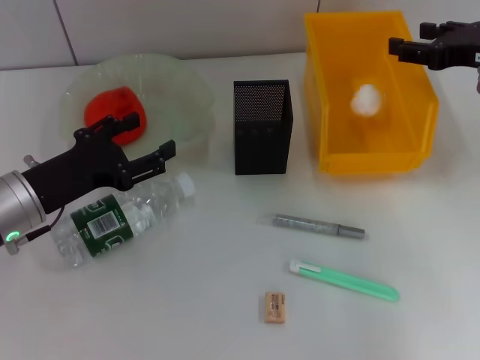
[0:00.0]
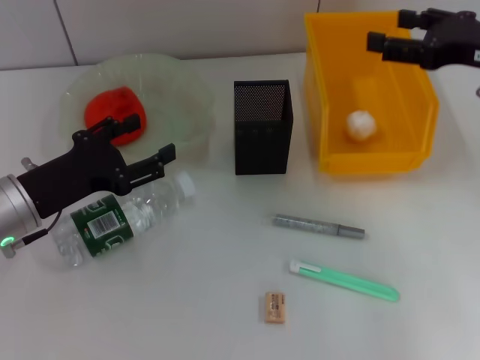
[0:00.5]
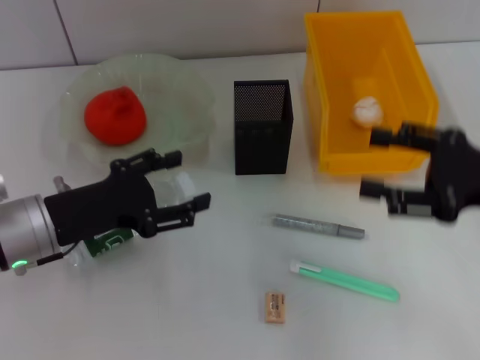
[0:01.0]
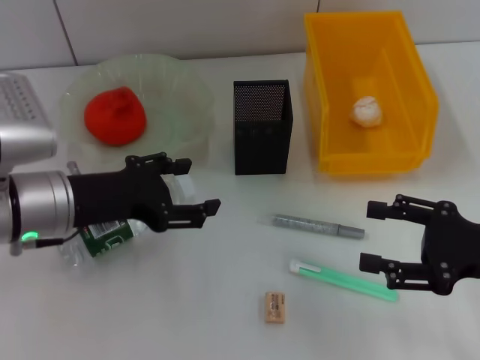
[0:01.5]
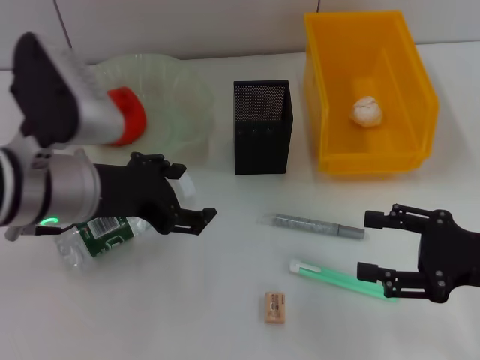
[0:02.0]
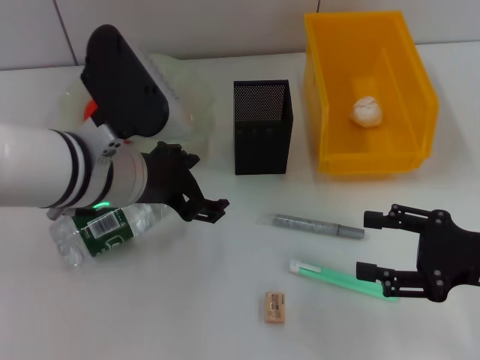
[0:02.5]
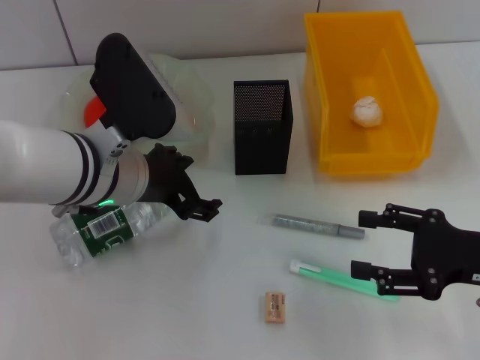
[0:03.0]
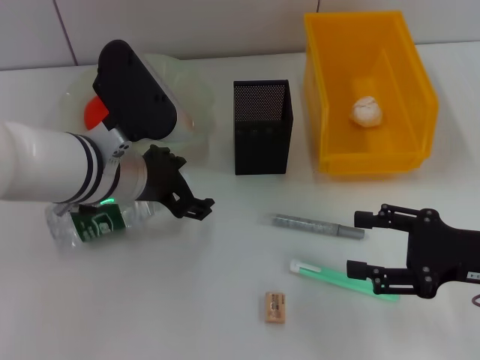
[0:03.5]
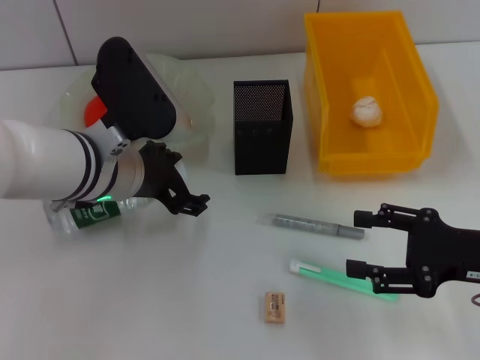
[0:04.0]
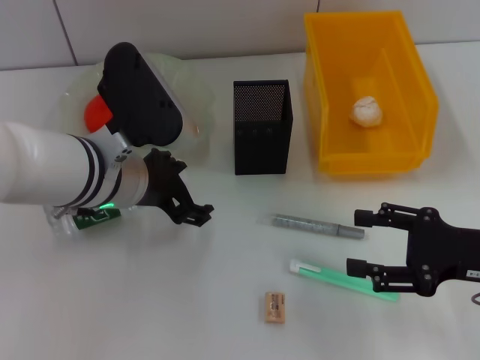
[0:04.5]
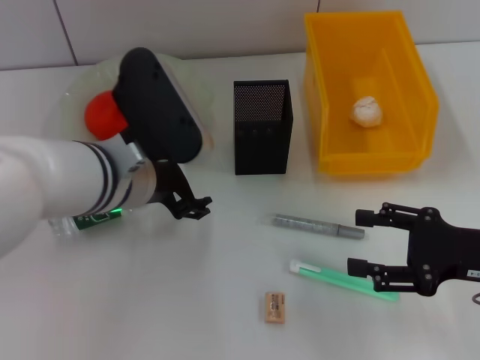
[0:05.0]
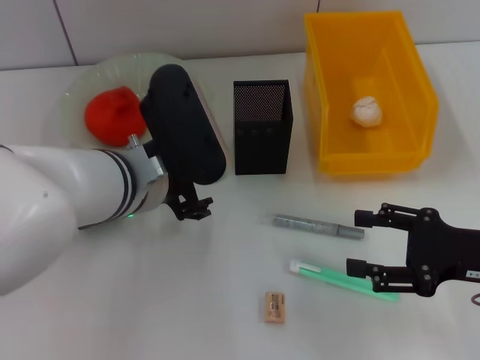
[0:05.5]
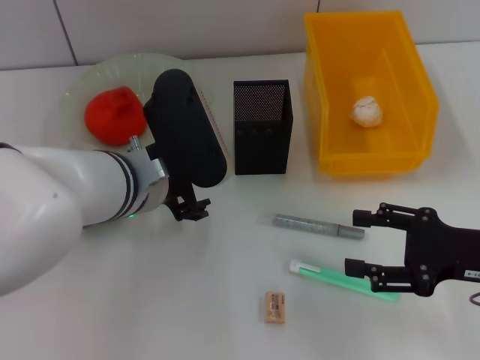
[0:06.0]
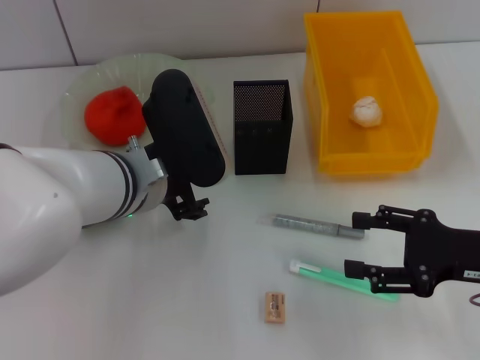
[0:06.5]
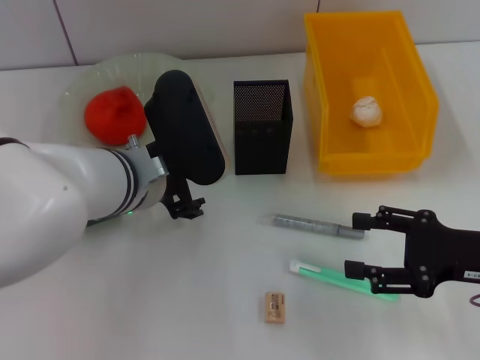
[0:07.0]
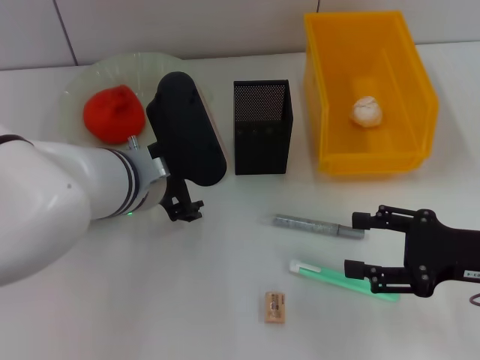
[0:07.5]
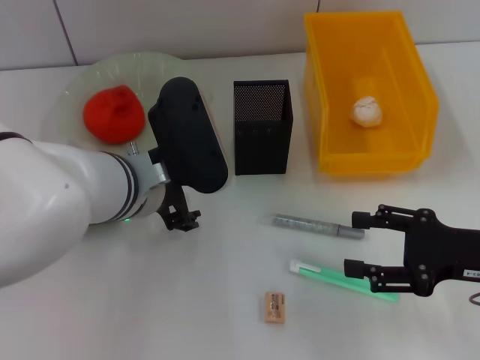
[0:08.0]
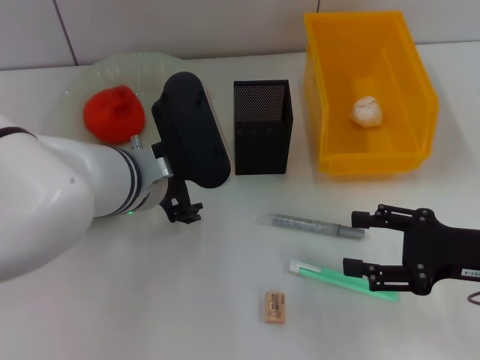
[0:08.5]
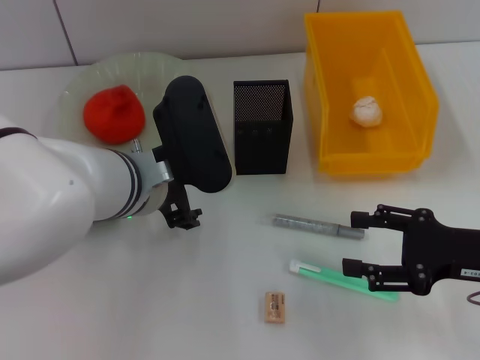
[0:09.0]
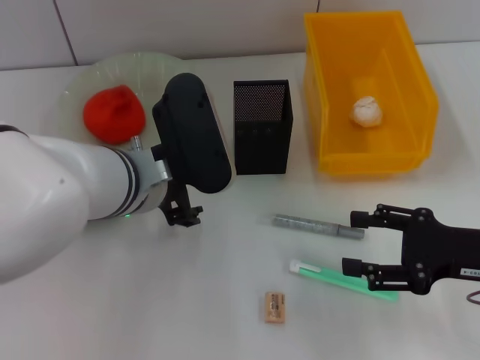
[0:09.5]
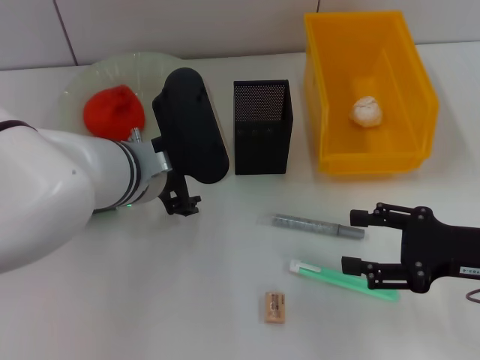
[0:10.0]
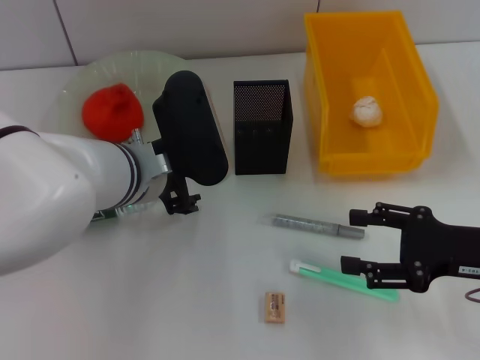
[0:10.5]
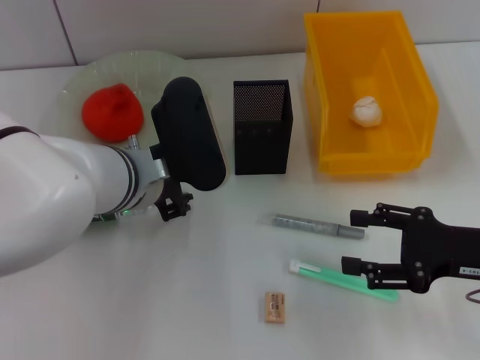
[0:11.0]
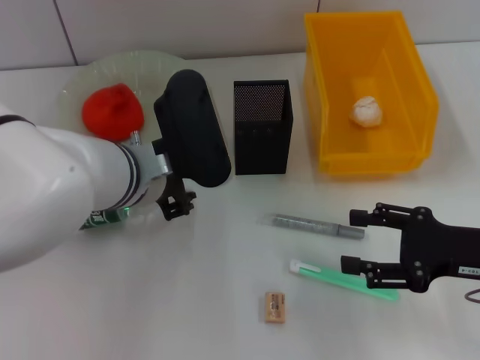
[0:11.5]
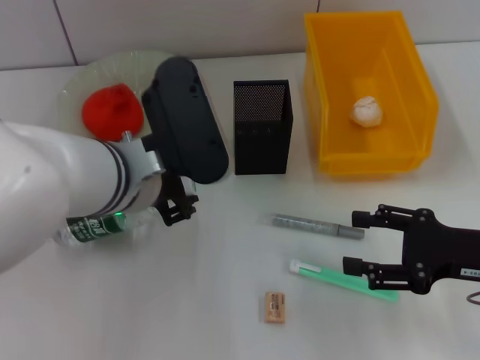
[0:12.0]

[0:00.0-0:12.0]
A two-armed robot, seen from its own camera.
Step, 1.5 to 11.0 s: Grab the water bottle with the left hand.
0.0 to 2.0 s: The left gripper shifts roughly 10 cm upward and to the right. Meanwhile the right gripper goes some 20 cm backward and downward.
2.0 to 4.0 s: The left gripper changes place by about 5 cm.
4.0 to 8.0 s: There are only small adjustments of the grippers.
8.0 to 10.0 s: The grippers stay close to where they were, moving slightly.
10.0 to 12.0 s: The left gripper closes its fingers.

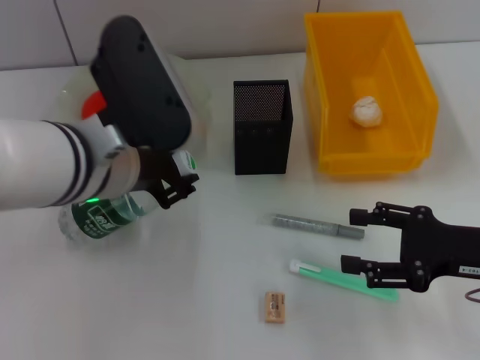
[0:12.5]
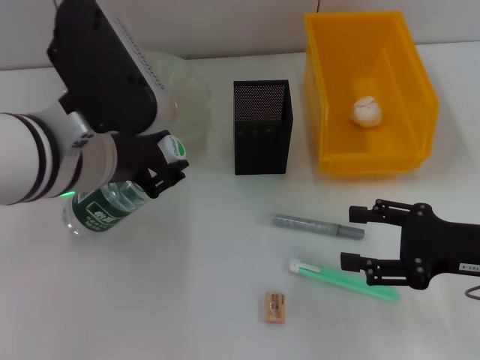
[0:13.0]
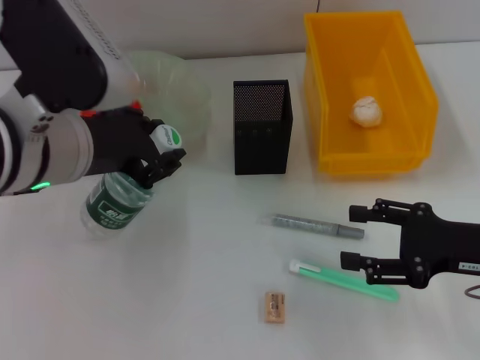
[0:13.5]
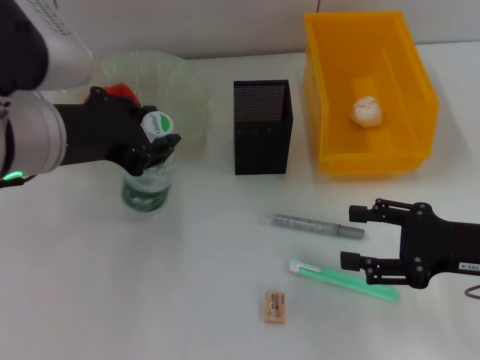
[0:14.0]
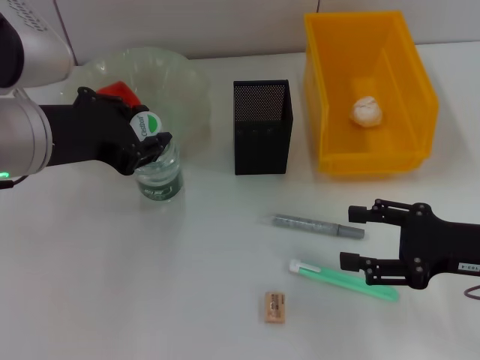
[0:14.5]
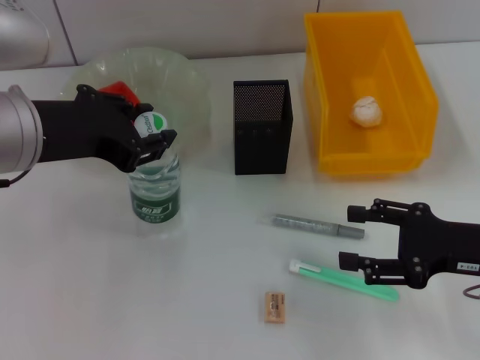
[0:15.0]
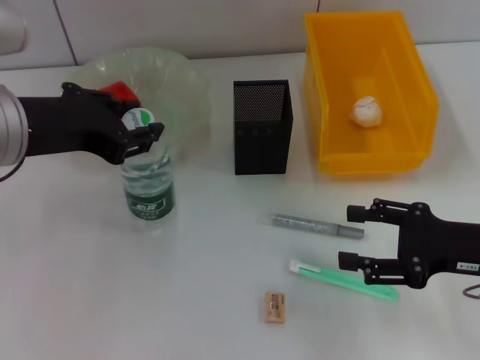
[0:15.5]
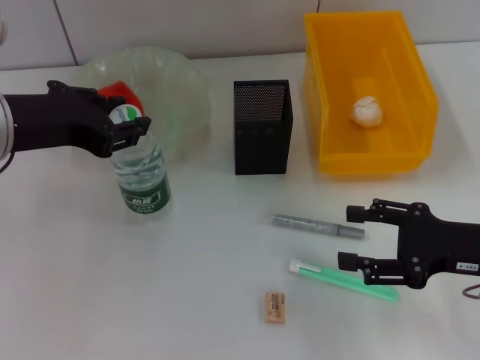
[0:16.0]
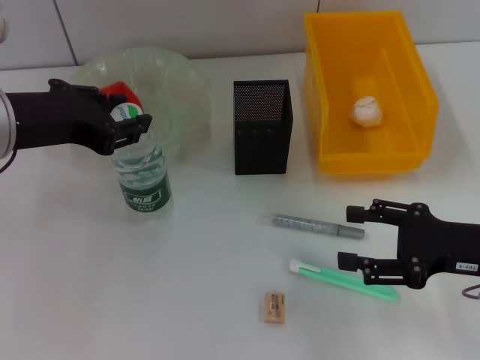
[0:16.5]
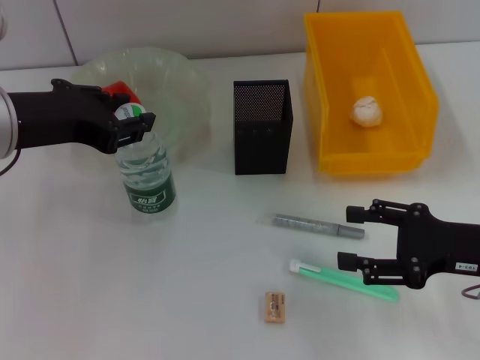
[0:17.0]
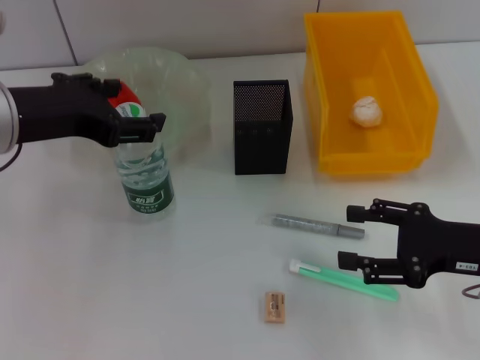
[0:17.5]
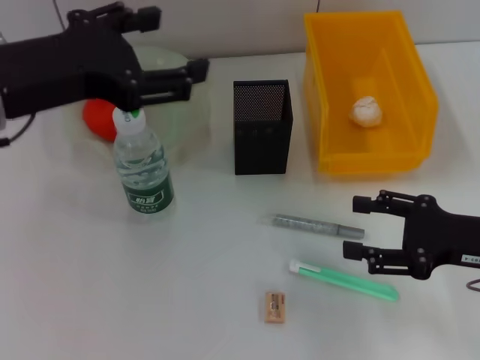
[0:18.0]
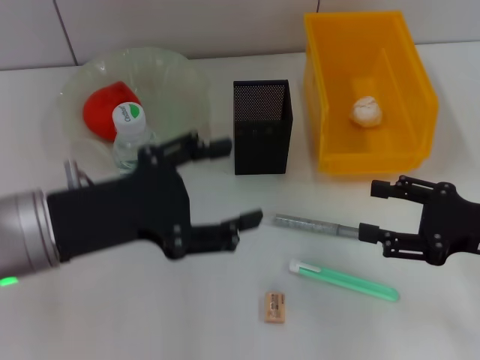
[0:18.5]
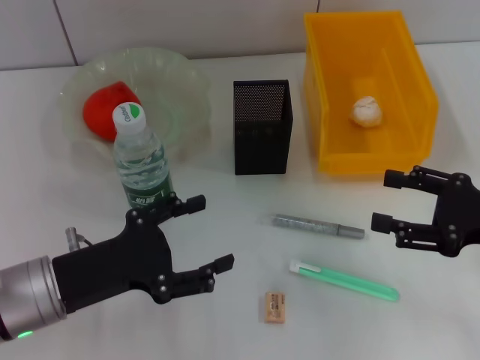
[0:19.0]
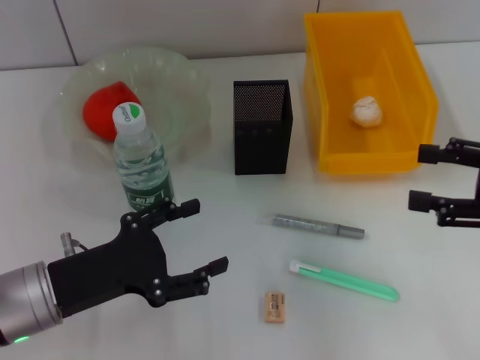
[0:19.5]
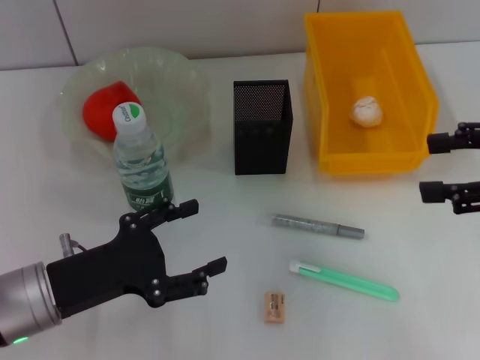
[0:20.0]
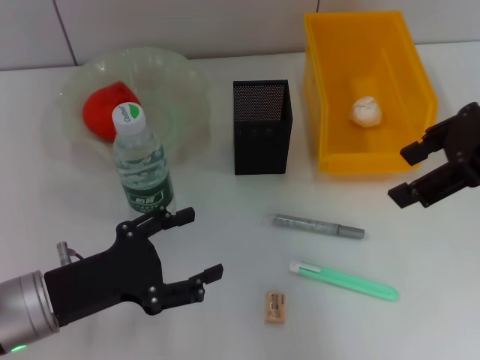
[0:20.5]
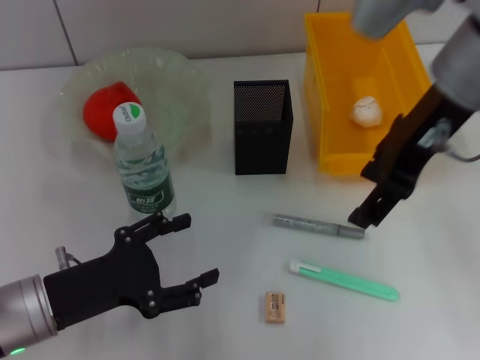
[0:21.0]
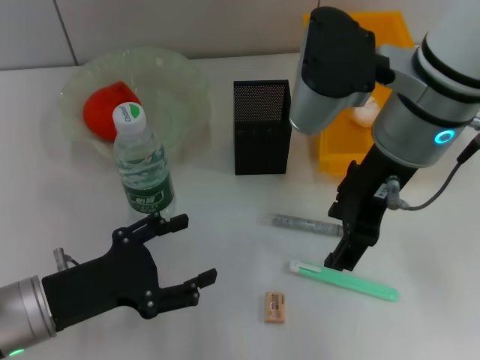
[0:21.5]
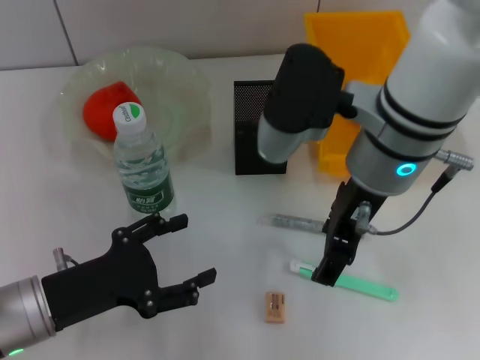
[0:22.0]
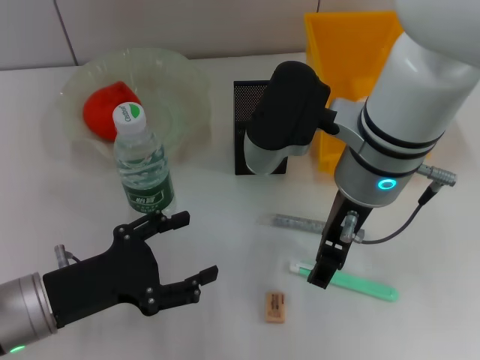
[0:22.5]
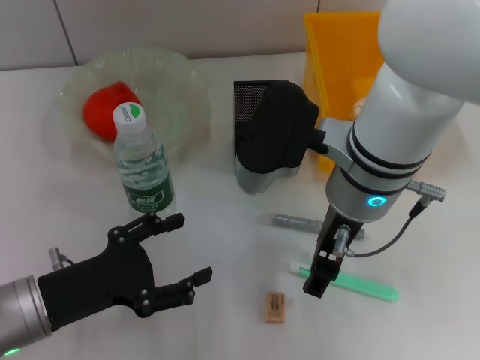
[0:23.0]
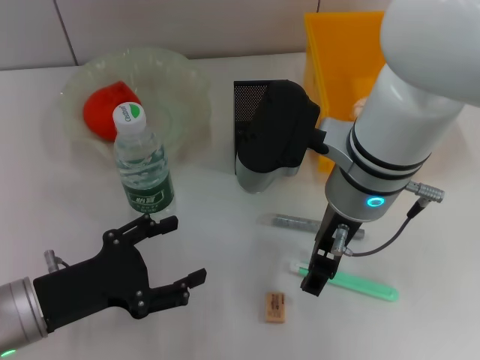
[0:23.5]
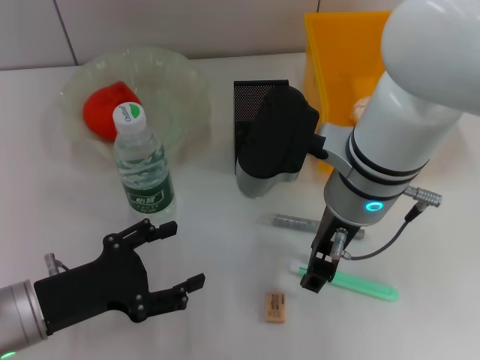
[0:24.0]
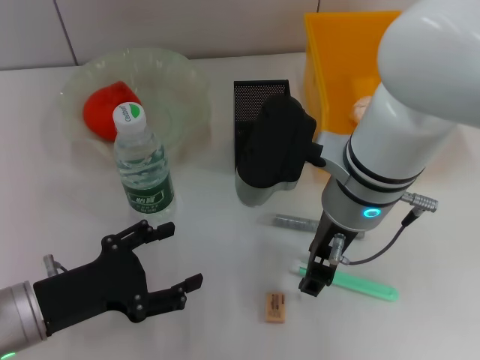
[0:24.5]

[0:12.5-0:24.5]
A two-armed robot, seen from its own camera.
Step, 12.5 to 17.0 s: Place the water bottle on the table with the left hand.
12.5 to 14.5 s: The left gripper goes about 5 cm to the left.
14.5 to 16.5 s: There are only small adjustments of the grippers.
16.5 to 18.5 s: The left gripper heads downward and backward, covering about 10 cm, and opens up.
18.5 to 20.5 s: The left gripper goes roughly 10 cm downward. Meanwhile the right gripper moves upward, roughly 20 cm.
20.5 to 22.5 s: The right gripper goes some 20 cm to the left and downward.
22.5 to 24.5 s: The grippers move only a little.

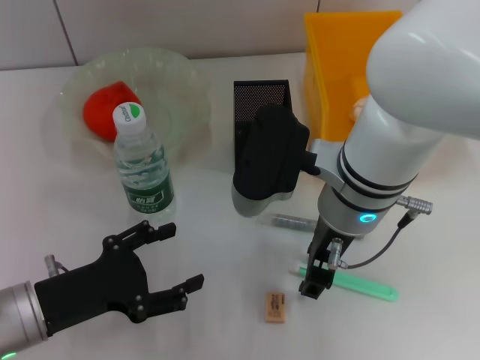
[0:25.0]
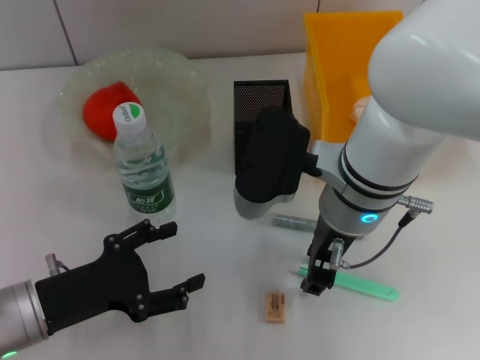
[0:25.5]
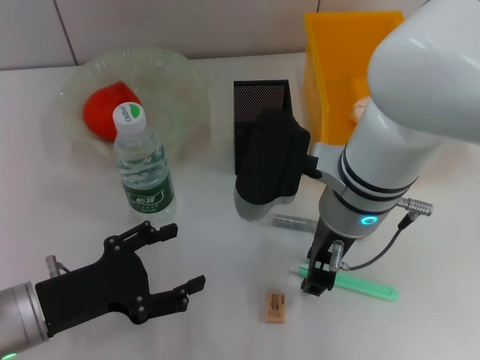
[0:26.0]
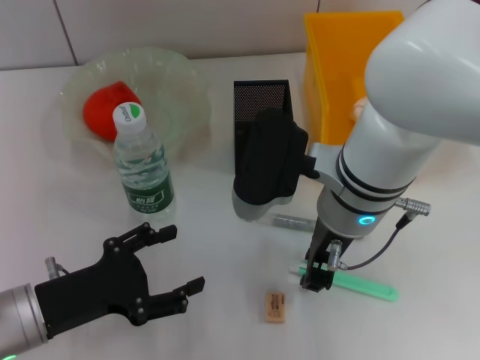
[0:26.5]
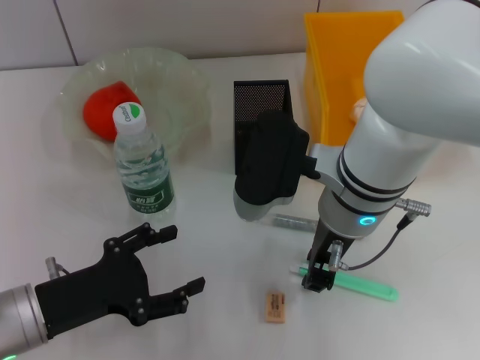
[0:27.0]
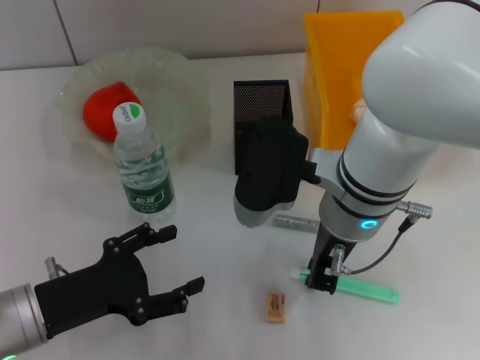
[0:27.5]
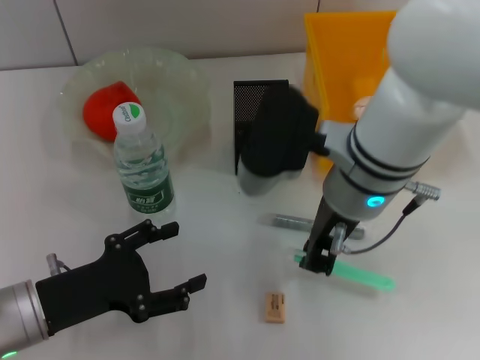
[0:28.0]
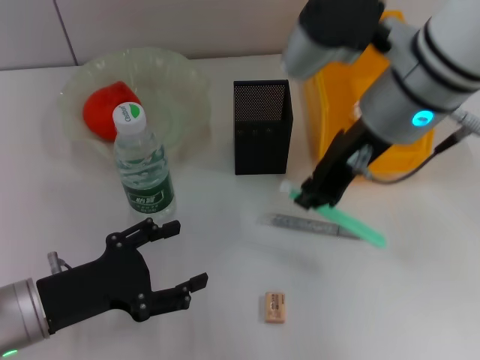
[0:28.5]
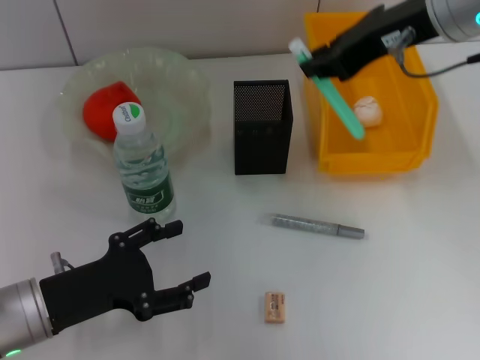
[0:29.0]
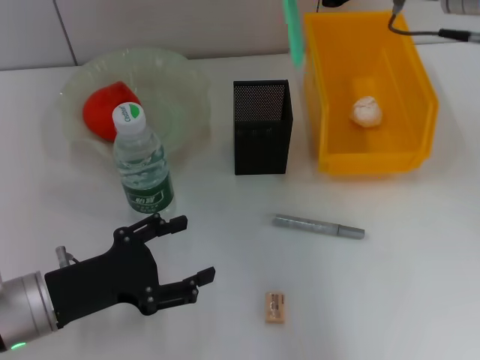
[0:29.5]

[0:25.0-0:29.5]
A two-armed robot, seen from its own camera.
Step, 25.0 to 27.5 s: Grab the blue utility knife with the right hand.
25.0 to 27.0 s: The right gripper closes its fingers.
27.0 to 29.5 s: The right gripper goes roughly 20 cm to the right, upward and forward.
